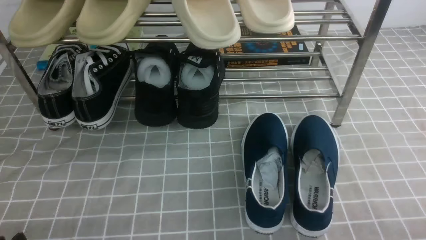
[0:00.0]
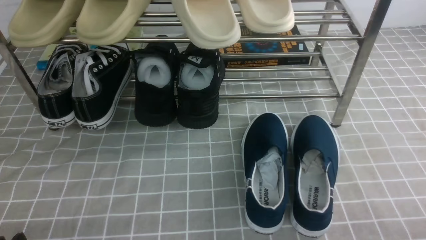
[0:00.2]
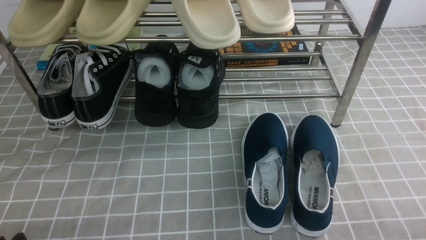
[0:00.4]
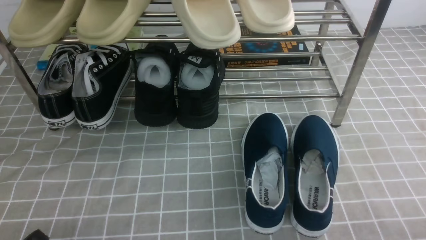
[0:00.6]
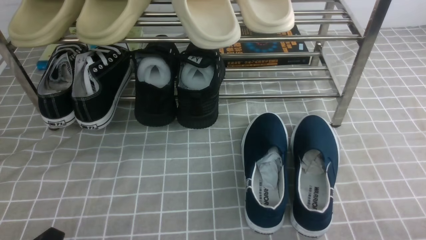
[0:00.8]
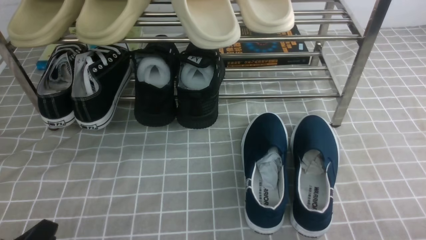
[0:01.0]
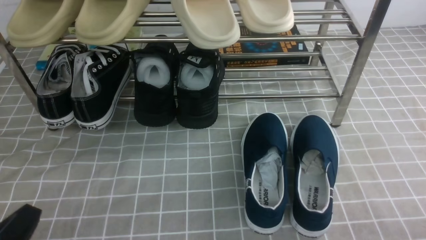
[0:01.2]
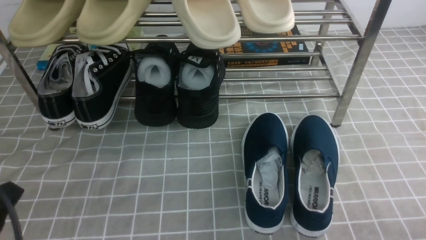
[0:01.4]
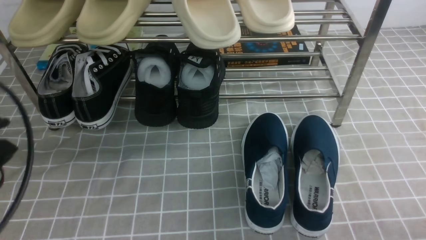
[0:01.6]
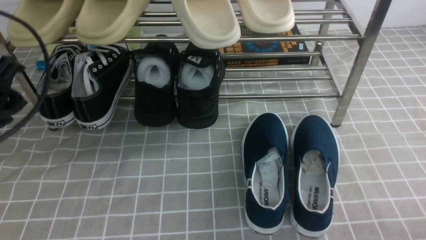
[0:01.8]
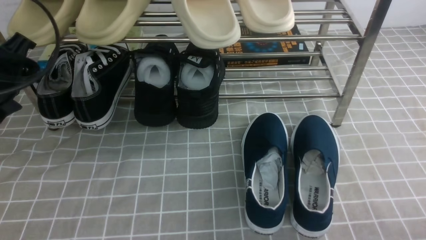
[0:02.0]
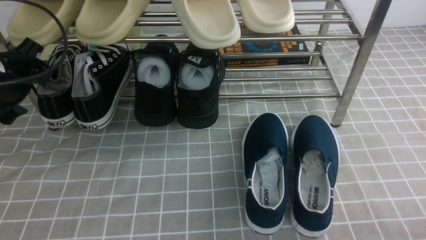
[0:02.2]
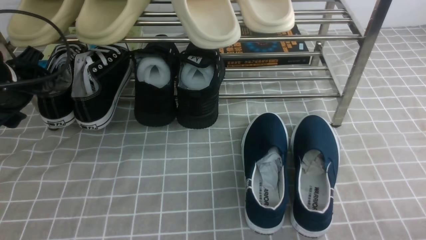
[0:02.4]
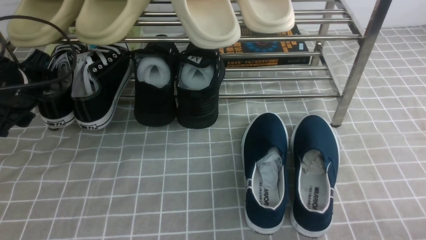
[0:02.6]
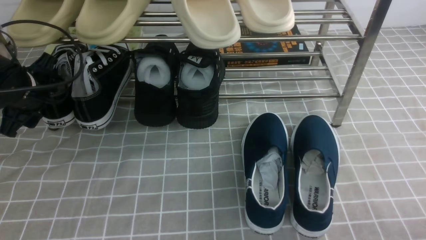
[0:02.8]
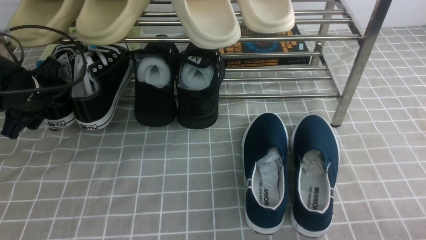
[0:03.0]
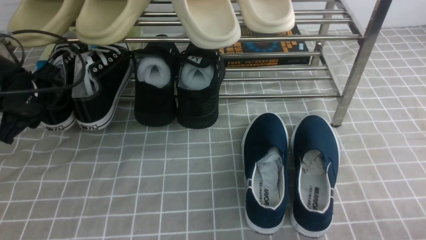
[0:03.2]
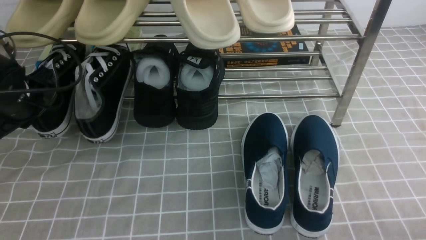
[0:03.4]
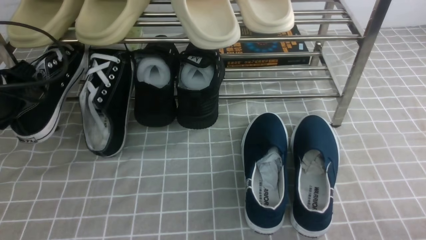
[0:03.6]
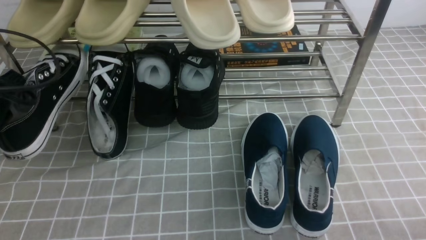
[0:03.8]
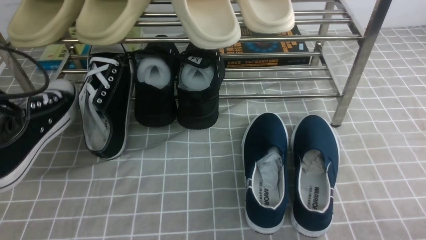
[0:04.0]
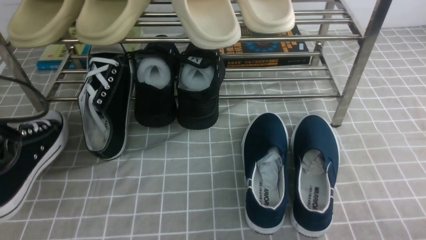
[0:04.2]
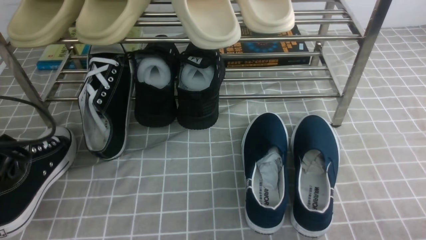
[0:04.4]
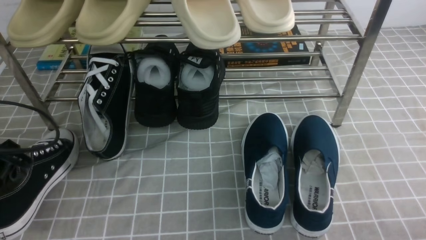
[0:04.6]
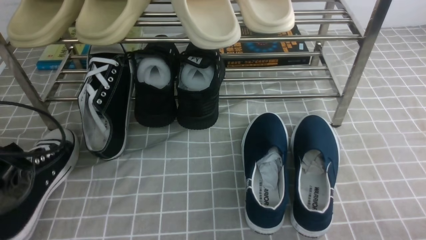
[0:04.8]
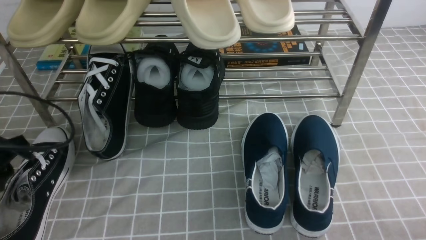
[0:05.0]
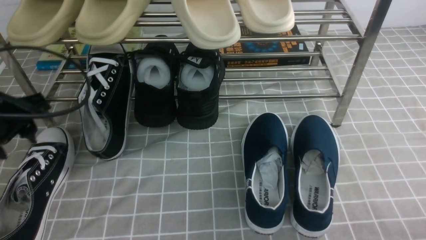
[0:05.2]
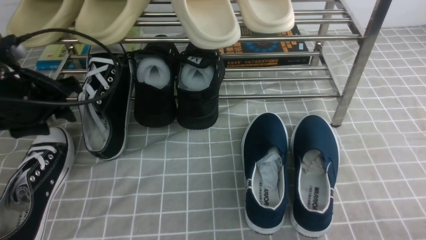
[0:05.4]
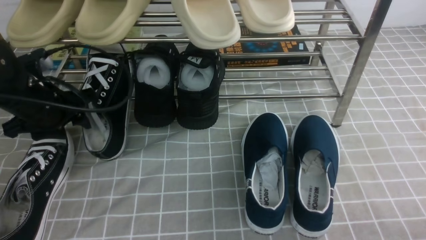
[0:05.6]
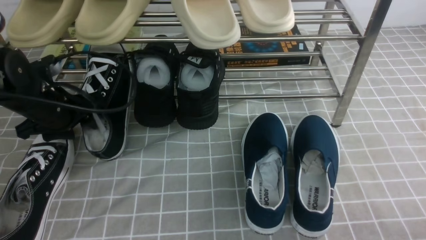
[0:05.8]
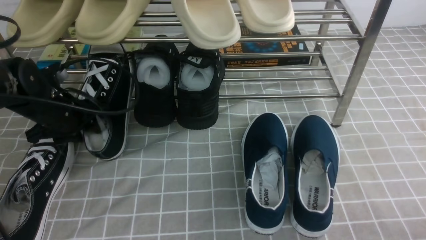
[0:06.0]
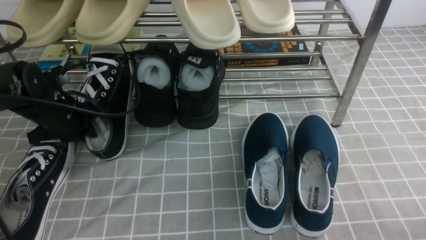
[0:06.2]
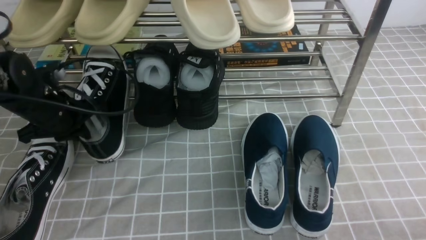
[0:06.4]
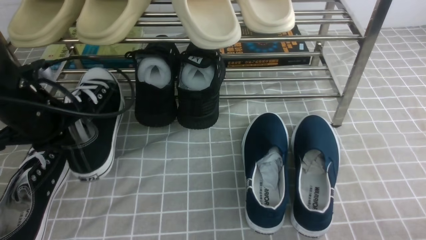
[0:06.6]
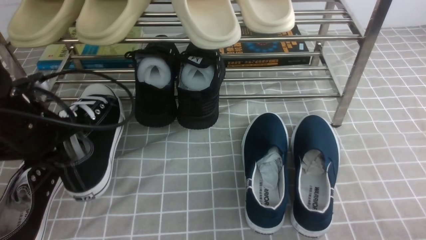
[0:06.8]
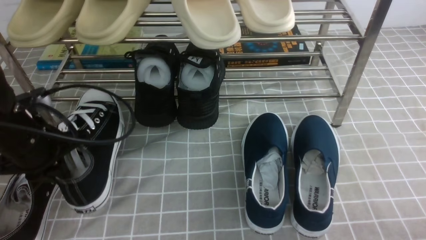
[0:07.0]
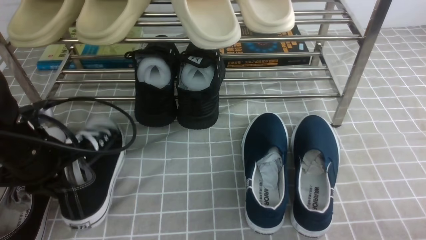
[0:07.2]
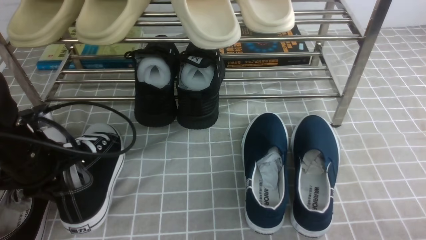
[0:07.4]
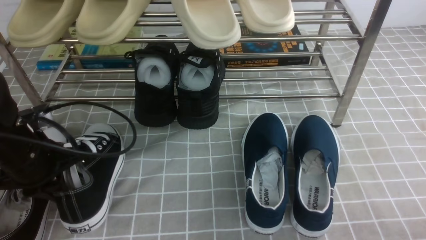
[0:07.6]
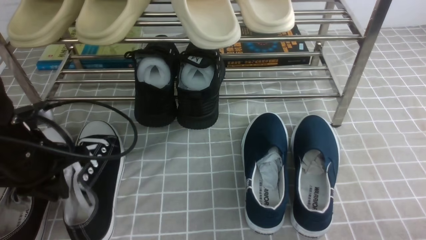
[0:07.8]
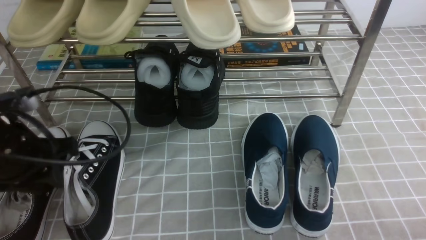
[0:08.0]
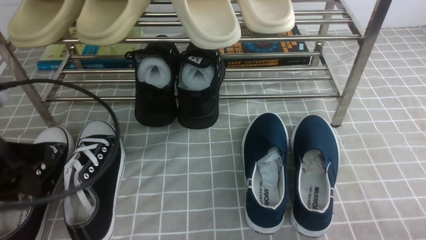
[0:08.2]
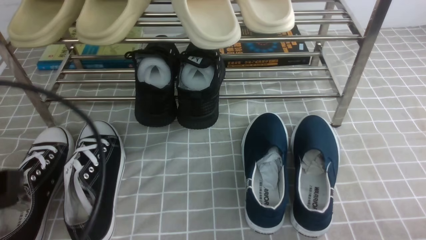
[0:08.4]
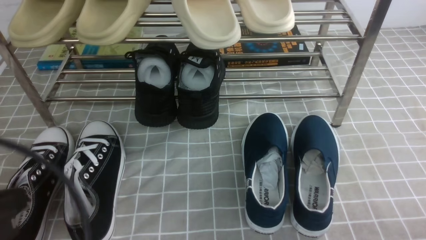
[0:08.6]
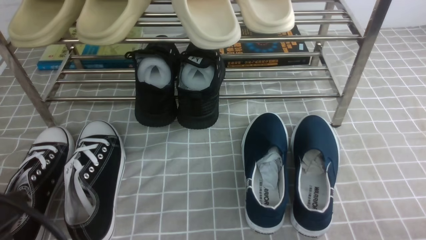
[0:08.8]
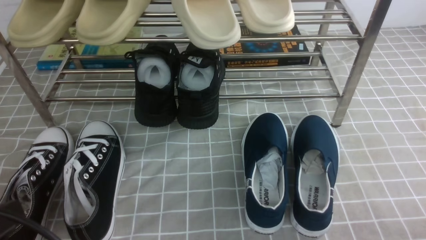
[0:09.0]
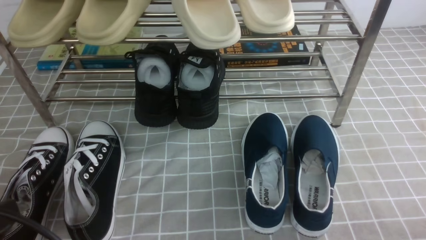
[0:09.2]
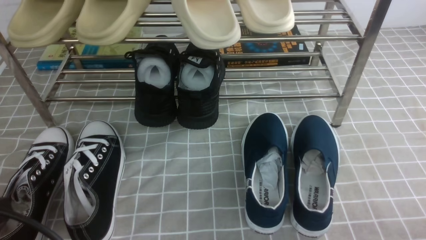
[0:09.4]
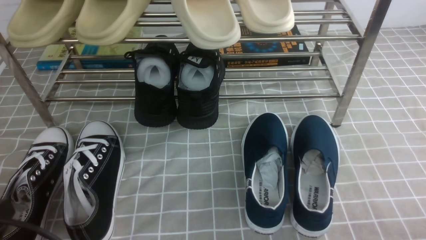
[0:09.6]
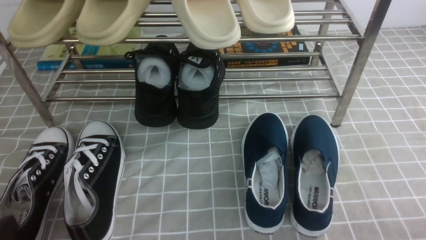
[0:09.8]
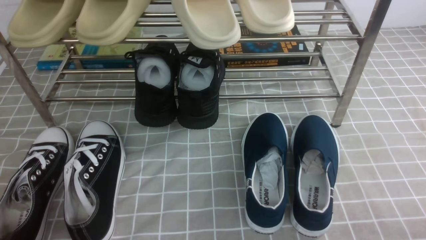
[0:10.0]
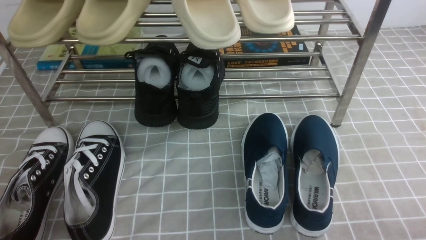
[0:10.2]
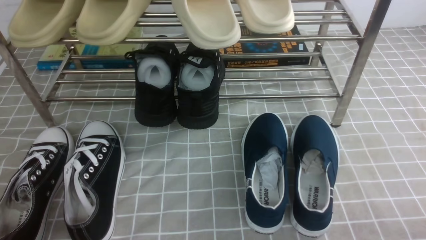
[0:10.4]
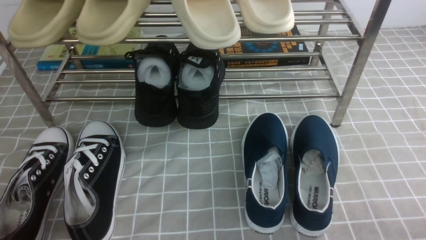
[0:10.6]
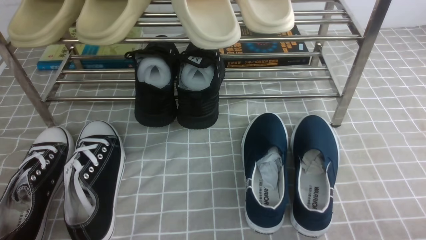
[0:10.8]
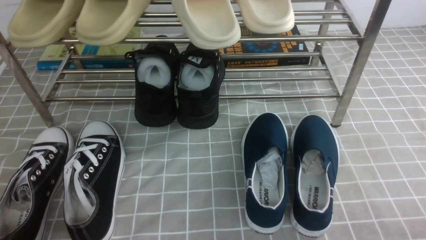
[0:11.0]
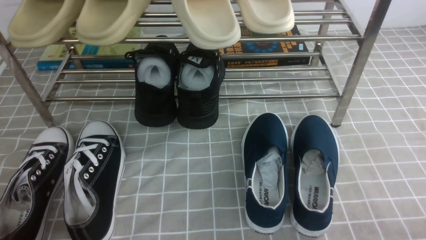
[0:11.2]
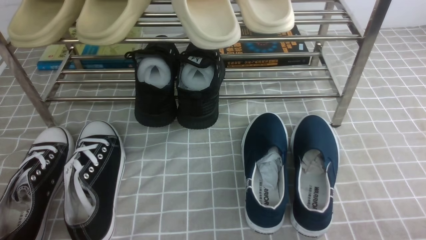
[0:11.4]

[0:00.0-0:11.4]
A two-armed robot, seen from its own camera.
Step, 0:00.0 to 0:03.4: use the left arm to clamp a shoe on the left side of the shoe rack.
Step, 0:03.6 to 0:05.0: Use your left arm to remove the clamped shoe from the shoe rack and put it down.
Step, 0:05.2 to 0:06.4: use the left arm to clamp a shoe on the left side of the shoe rack.
Step, 0:06.6 to 0:08.0: Use your left arm to remove the clamped shoe from the shoe rack and put it down.
0:00.0 to 0:01.4: The left gripper heads upward, covering roughly 10 cm, and closes.
0:01.4 to 0:02.8: The left gripper travels forward by approximately 25 cm, and opens up.
0:02.8 to 0:04.2: The left gripper moves backward, roughly 10 cm, and closes.
0:04.2 to 0:05.6: The left gripper heads forward, covering some 10 cm, and opens up.
0:05.6 to 0:07.2: The left gripper is displaced backward by roughly 5 cm, and closes its fingers.
0:07.2 to 0:08.6: The left gripper heads backward and upward, covering about 20 cm, and opens, then closes again.
0:08.6 to 0:10.0: The left gripper moves downward, about 15 cm.
0:10.0 to 0:11.4: The two grippers keep their place.
